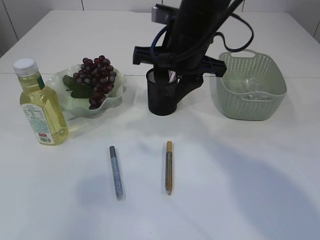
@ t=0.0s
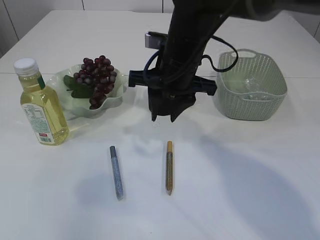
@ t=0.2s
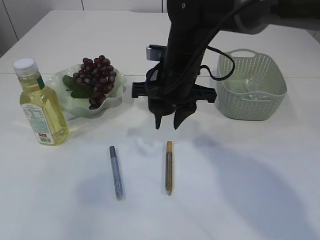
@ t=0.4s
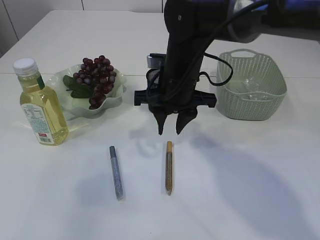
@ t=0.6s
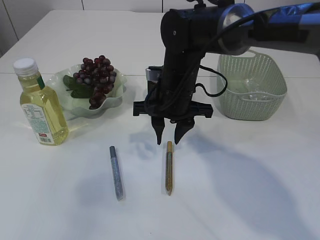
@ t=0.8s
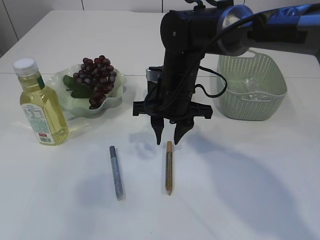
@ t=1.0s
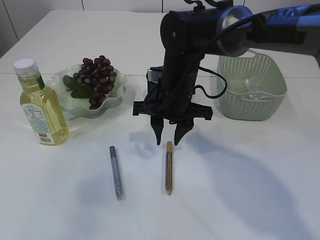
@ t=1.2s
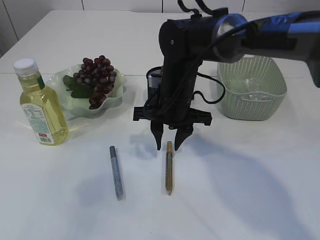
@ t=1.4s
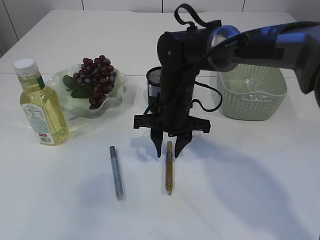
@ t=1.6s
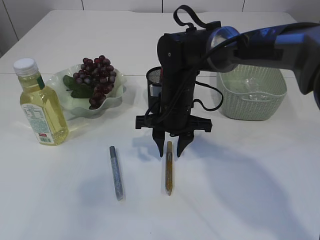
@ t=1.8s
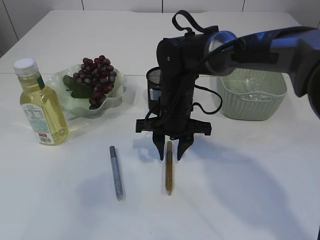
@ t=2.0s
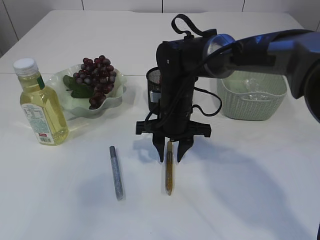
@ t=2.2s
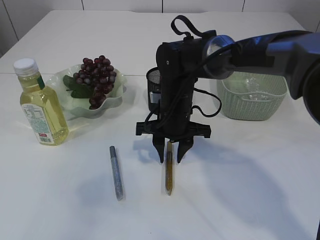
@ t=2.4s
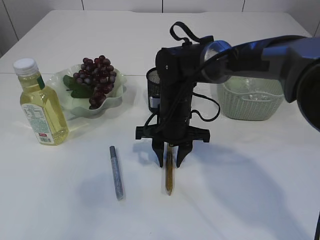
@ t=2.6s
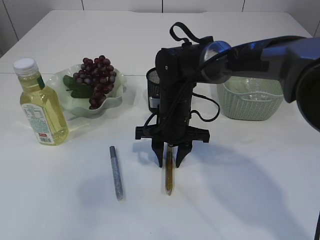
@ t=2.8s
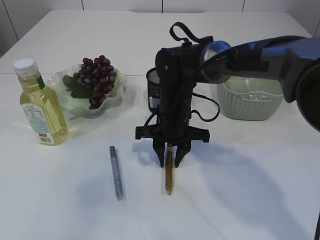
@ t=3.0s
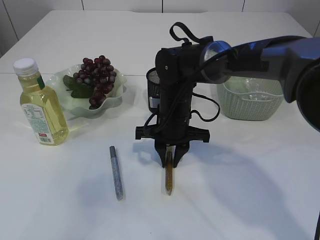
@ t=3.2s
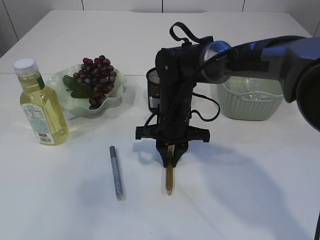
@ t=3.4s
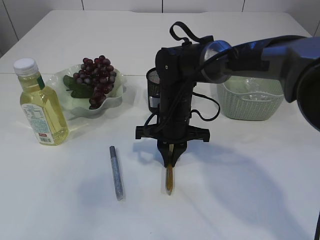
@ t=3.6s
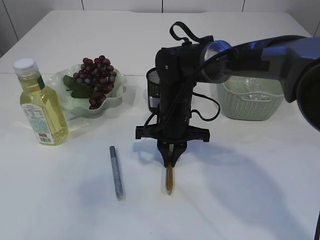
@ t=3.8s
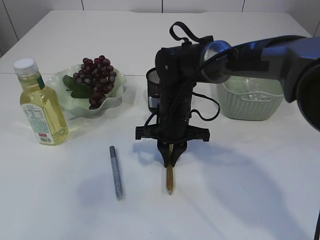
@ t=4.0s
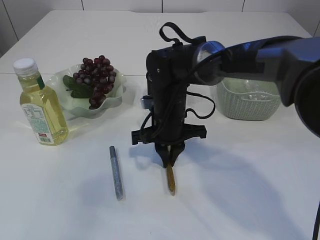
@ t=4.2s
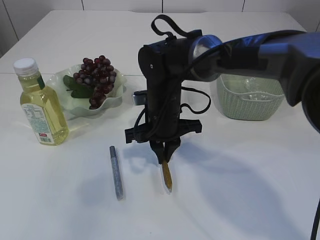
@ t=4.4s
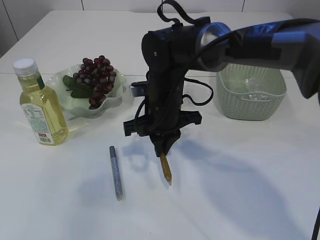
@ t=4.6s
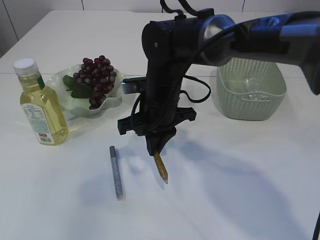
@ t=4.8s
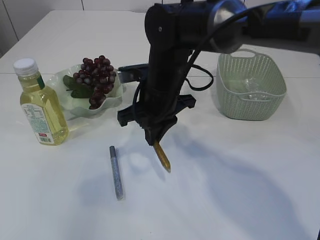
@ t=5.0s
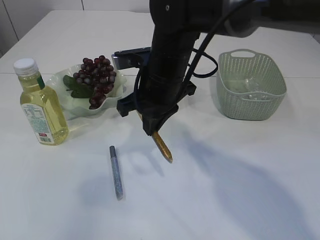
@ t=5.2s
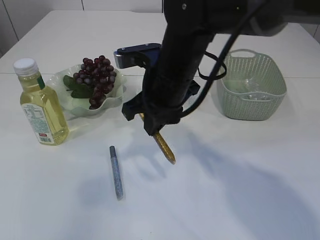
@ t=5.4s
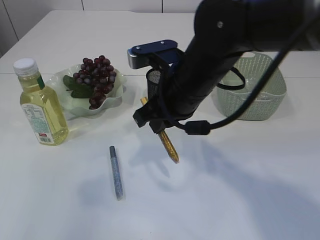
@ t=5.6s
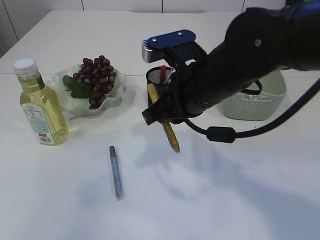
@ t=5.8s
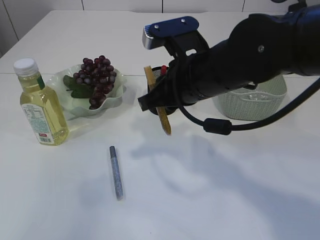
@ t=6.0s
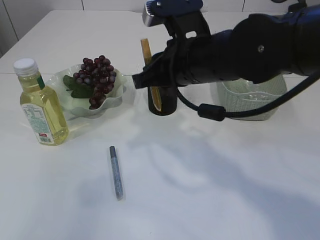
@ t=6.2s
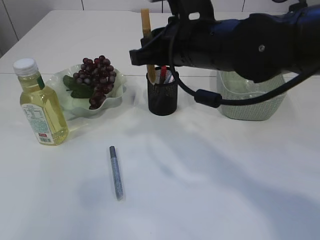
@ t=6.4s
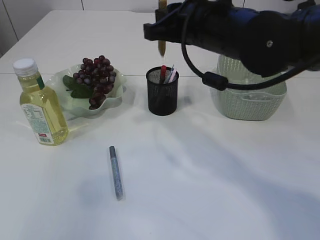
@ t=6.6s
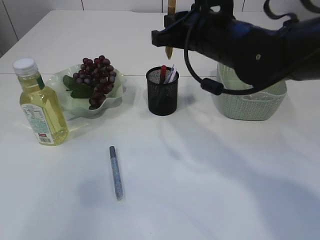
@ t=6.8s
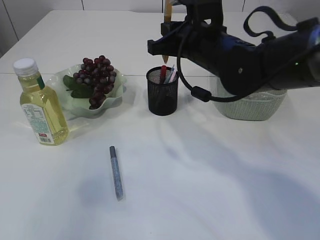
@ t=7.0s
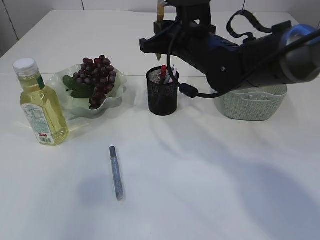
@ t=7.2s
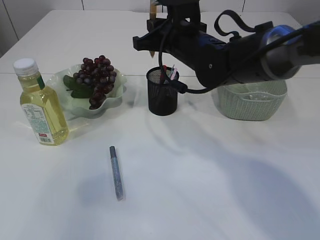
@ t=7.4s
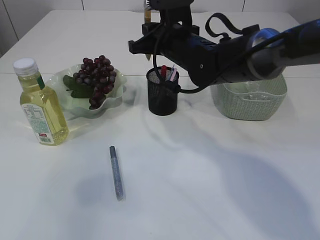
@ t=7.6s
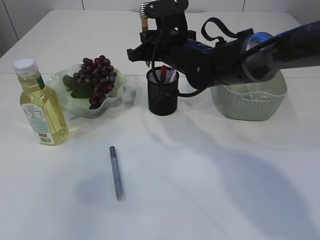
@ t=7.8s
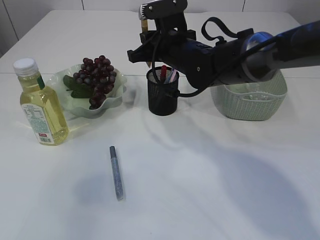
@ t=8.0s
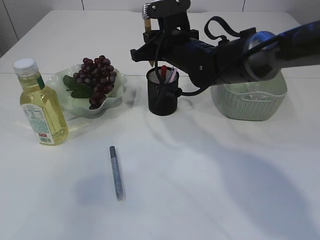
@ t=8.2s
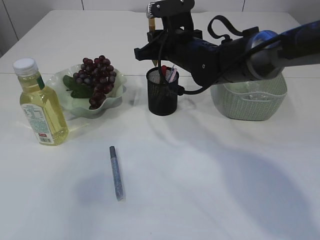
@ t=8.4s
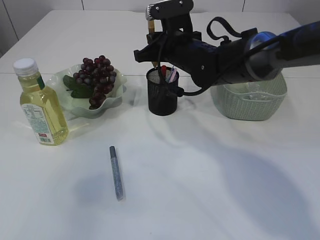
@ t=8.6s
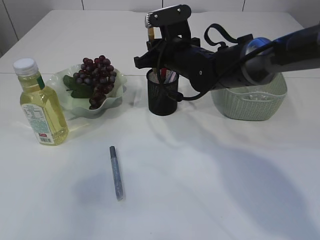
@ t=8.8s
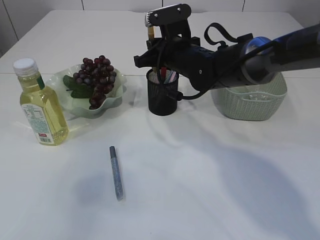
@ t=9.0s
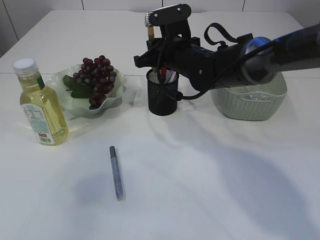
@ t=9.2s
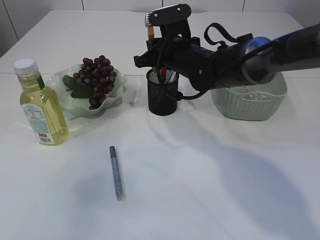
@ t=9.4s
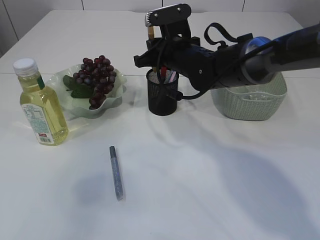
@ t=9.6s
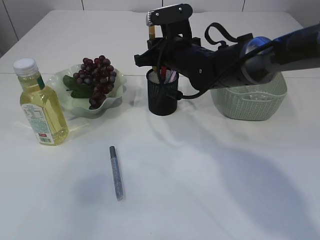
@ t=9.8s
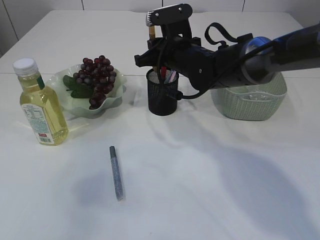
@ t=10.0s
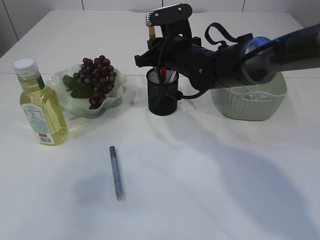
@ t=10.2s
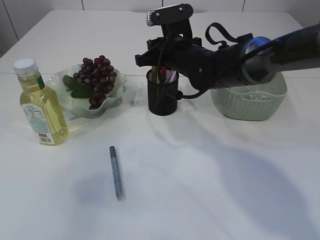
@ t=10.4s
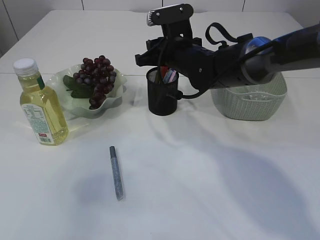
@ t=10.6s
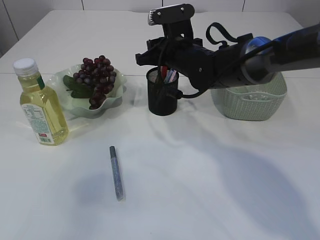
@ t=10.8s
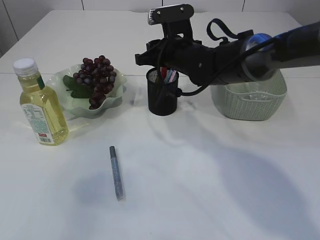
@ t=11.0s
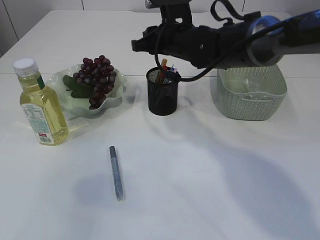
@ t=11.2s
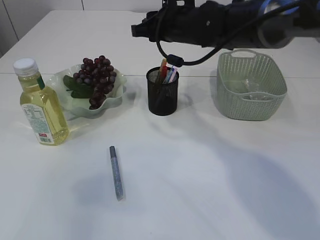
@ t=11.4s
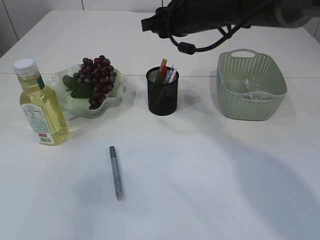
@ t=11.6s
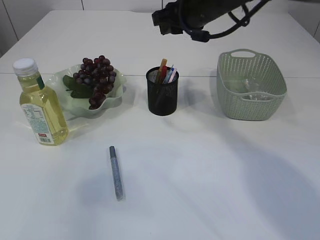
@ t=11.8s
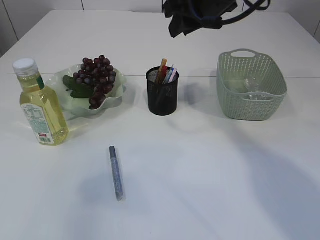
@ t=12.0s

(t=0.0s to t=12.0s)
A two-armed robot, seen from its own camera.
Step, t=0.0s - t=5.2s: pick up the yellow glue.
Step, t=5.4s - t=11.2s: place the yellow glue into the pen holder.
t=0.0s - t=1.6s: The right gripper travels downward by about 15 cm.
t=1.6s - t=3.0s: There are only small adjustments of the grippers.
t=3.0s - t=4.4s: The right gripper closes up.
t=4.4s - t=6.0s: The right gripper heads upward and backward, covering about 15 cm.
t=6.0s - t=7.6s: The right gripper is displaced forward by roughly 15 cm.
t=7.6s - t=9.0s: The grippers move only a little.
t=9.0s - t=10.4s: Both grippers stay about where they are.
t=10.4s - t=12.0s: The right gripper travels upward and to the right by some 15 cm.

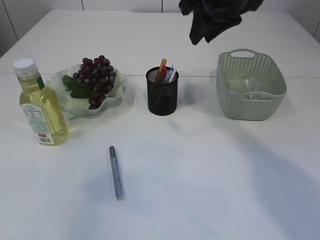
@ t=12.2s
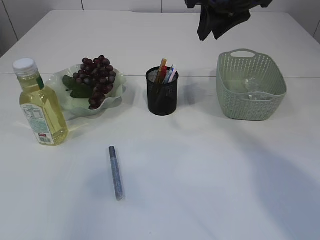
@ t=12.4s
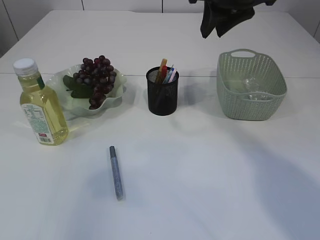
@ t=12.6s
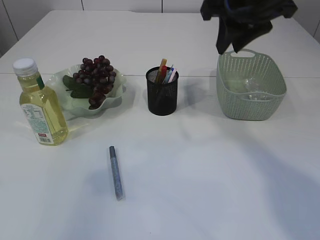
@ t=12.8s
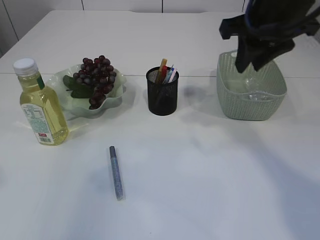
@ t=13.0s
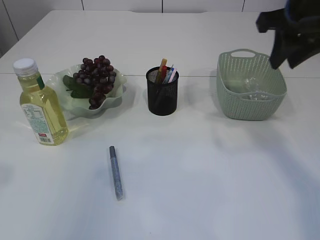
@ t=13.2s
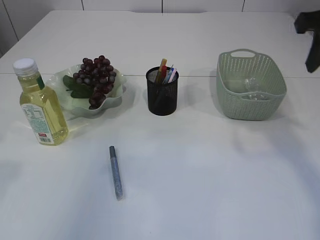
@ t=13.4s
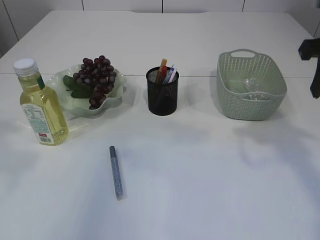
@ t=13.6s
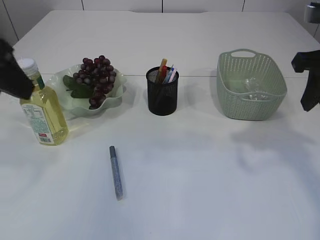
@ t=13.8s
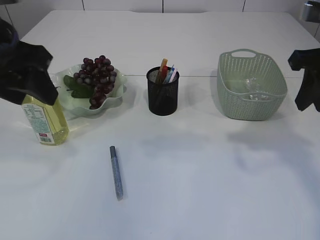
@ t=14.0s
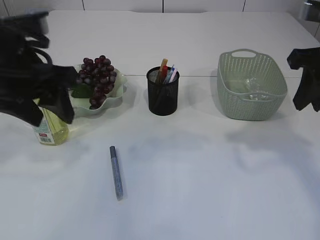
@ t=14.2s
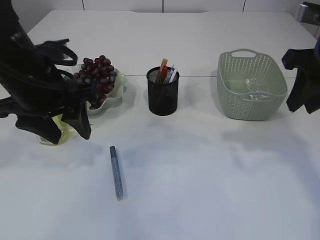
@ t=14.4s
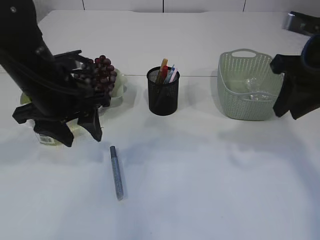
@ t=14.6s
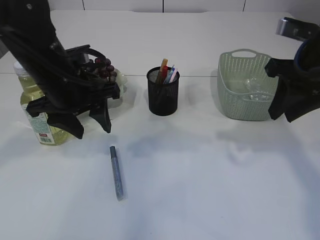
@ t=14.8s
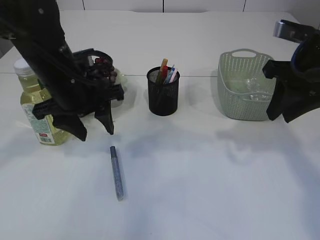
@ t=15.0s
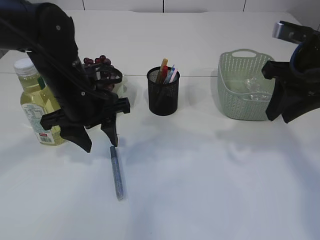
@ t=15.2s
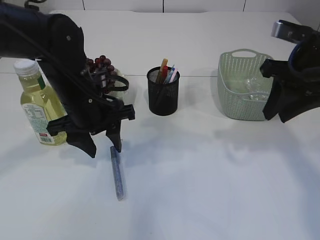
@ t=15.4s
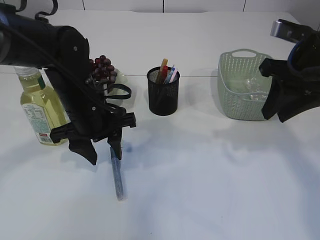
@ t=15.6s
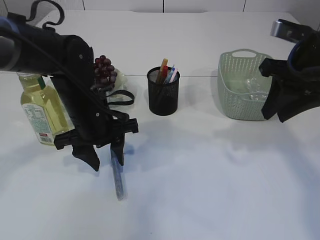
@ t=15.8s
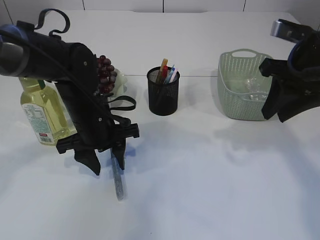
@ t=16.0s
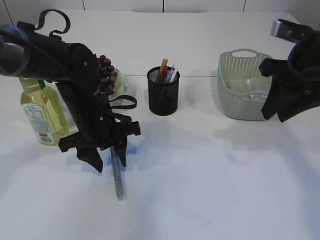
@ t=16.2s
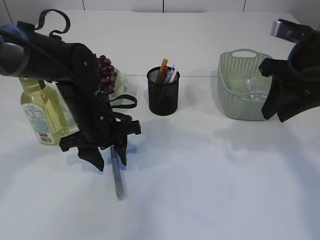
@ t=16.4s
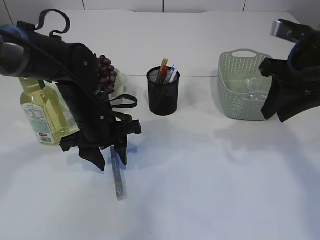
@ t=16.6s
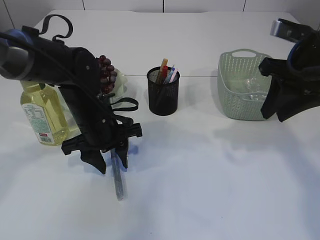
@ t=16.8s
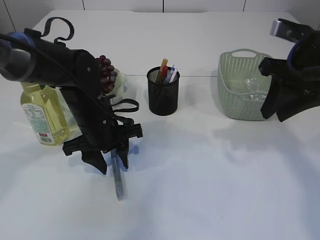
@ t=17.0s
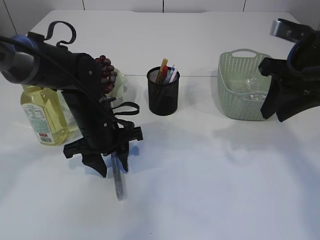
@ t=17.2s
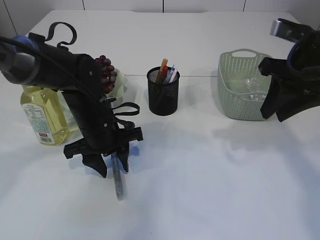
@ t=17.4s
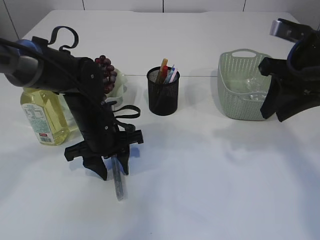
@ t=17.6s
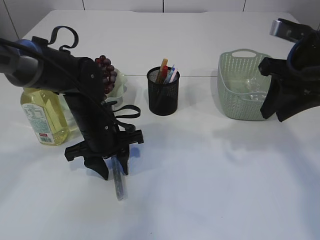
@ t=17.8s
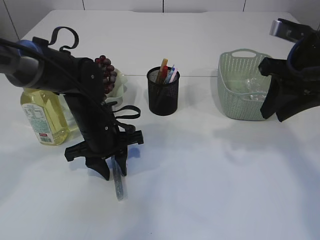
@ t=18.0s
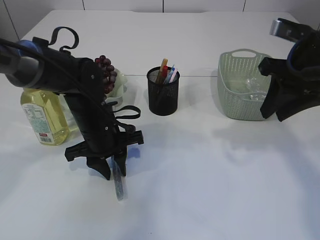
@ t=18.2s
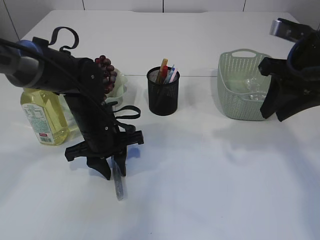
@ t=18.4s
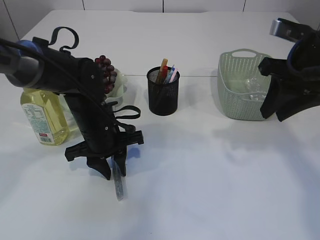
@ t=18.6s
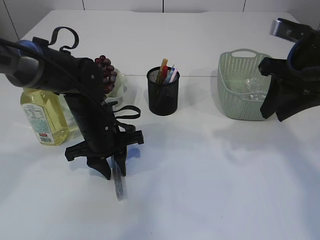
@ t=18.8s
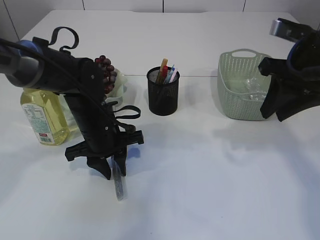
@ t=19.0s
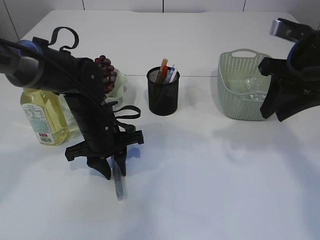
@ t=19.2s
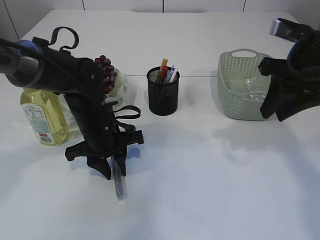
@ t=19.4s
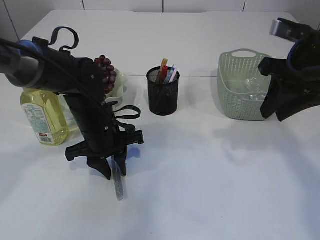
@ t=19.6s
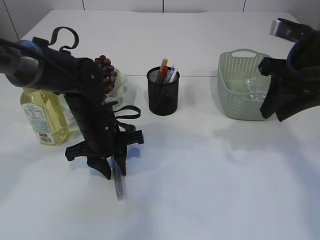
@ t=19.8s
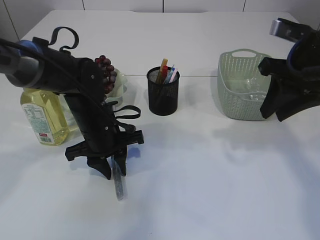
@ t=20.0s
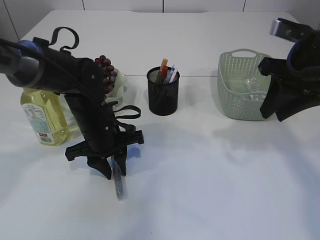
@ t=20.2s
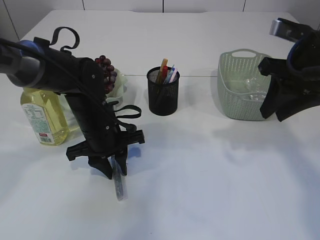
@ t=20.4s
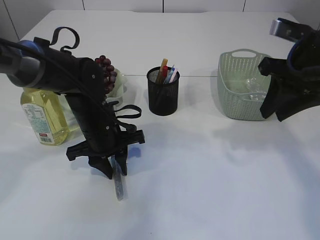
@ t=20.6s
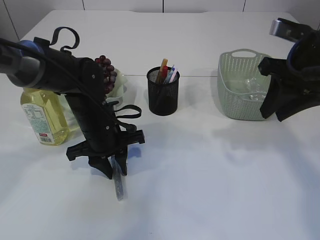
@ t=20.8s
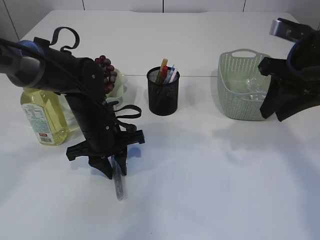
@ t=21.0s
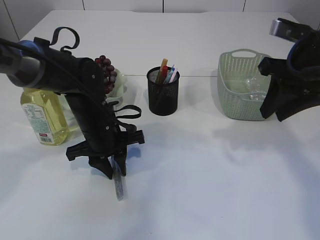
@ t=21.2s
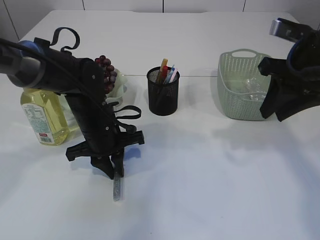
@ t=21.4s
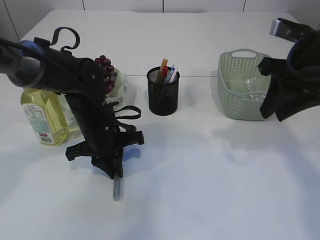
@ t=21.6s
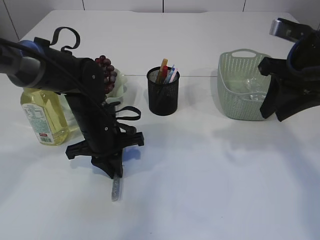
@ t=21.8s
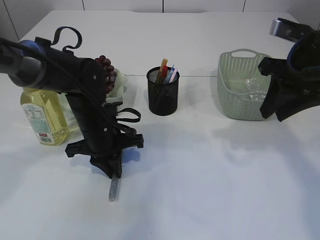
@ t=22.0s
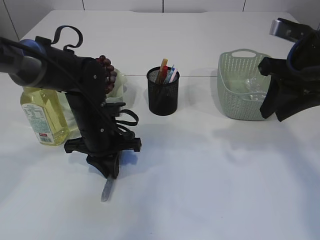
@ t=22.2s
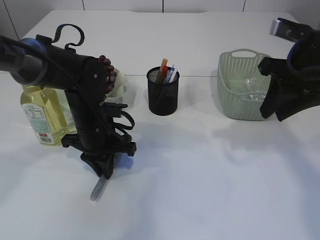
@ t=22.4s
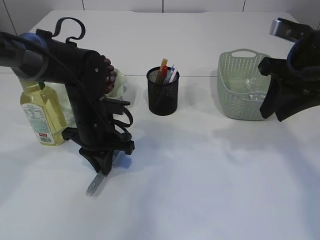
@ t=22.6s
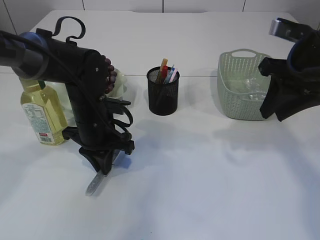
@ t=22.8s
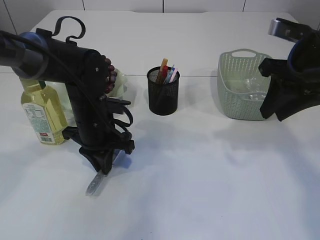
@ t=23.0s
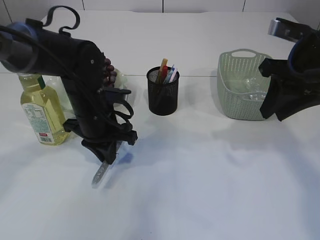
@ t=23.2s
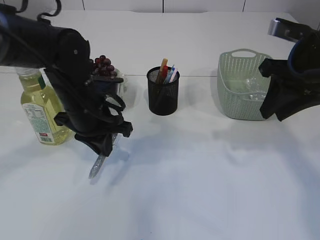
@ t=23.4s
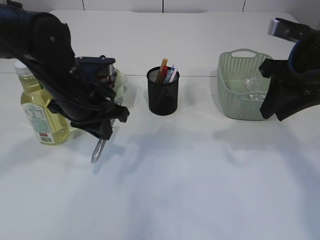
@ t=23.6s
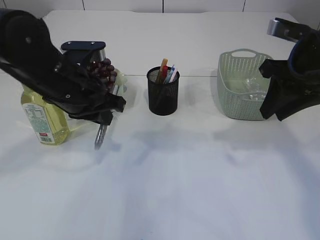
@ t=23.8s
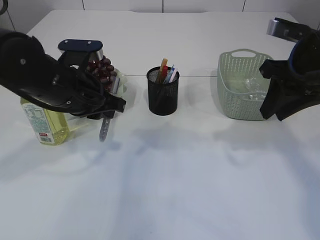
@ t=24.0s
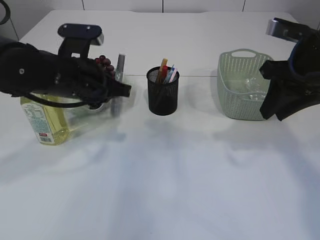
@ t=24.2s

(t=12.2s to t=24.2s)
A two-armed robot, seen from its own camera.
Step, t=12.2s - t=23.6s: pick up the silver glue.
t=12.2s - t=13.8s: The right gripper moves to the right and backward, some 15 cm; the left gripper moves forward and to the right, some 10 cm.
t=13.8s - t=15.2s: The left gripper travels downward, forward and to the right by about 20 cm.
t=15.2s - t=16.6s: The left gripper travels downward by about 5 cm.
t=16.6s - t=18.2s: The grippers make only small movements.
t=18.2s - t=21.2s: Both grippers stay about where they are.
t=22.6s - t=24.2s: The left gripper travels upward by approximately 10 cm.
